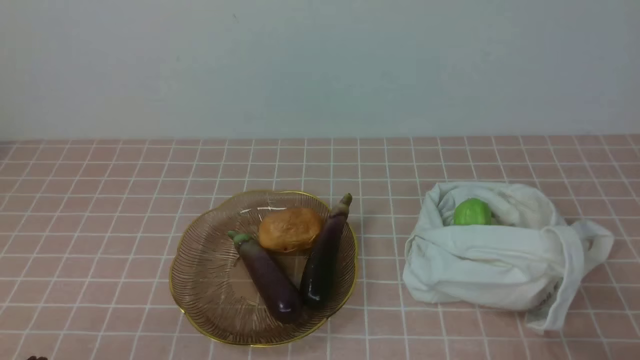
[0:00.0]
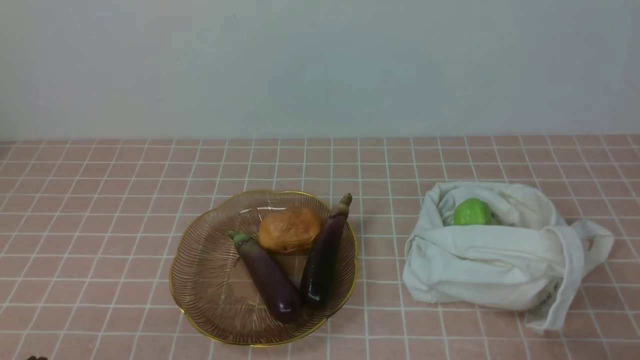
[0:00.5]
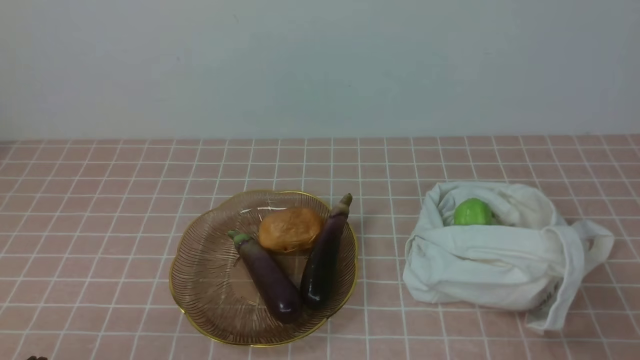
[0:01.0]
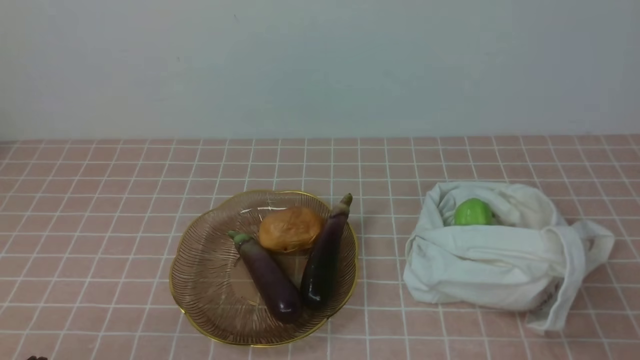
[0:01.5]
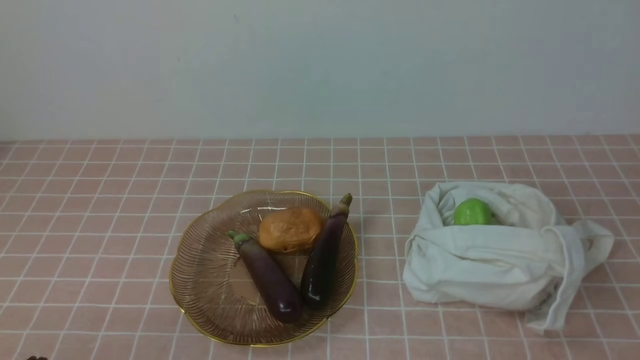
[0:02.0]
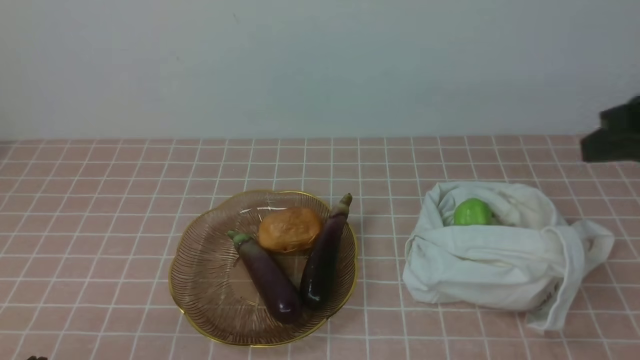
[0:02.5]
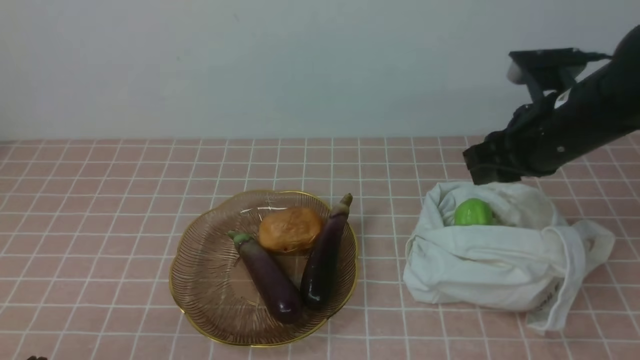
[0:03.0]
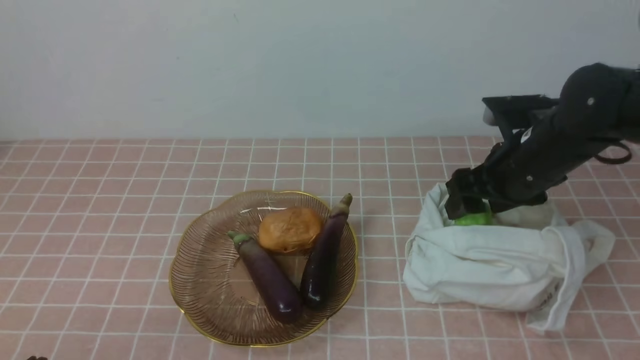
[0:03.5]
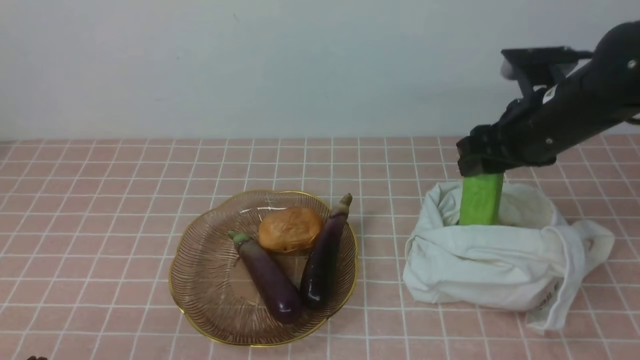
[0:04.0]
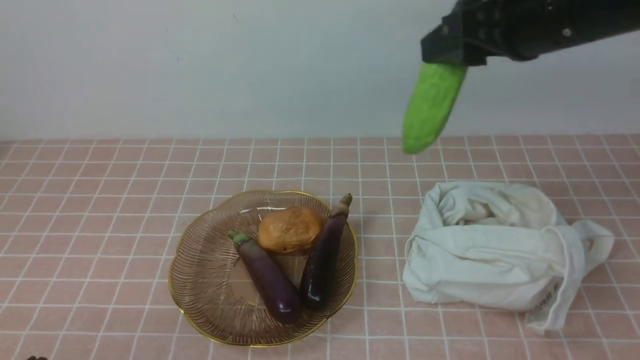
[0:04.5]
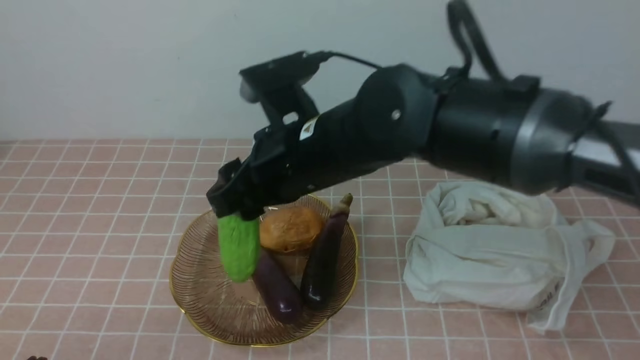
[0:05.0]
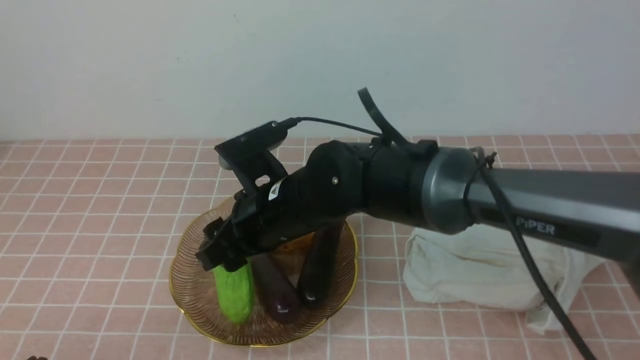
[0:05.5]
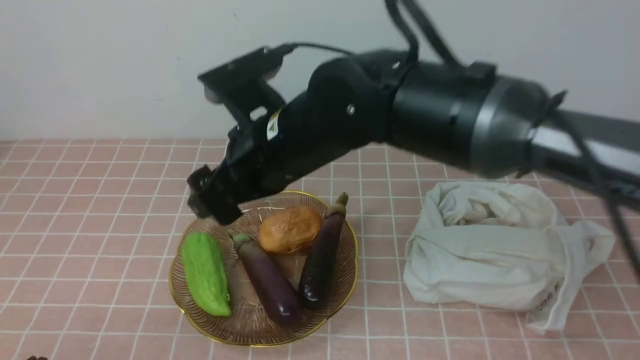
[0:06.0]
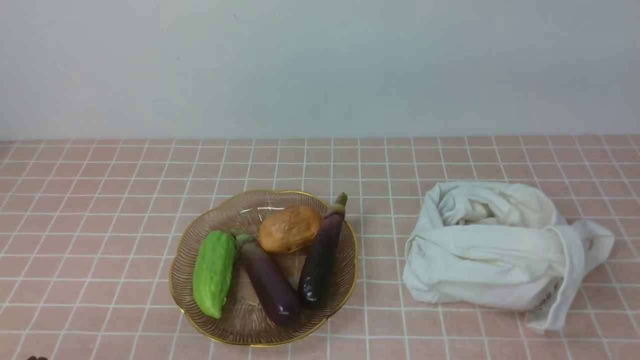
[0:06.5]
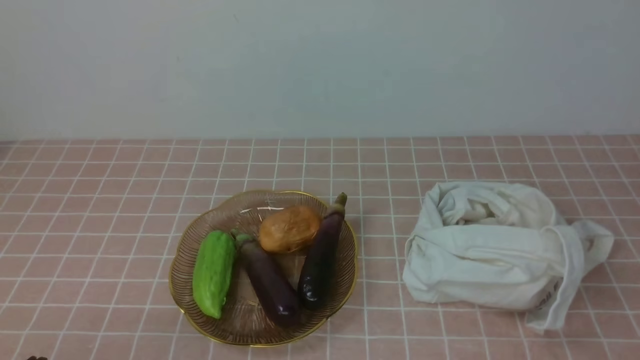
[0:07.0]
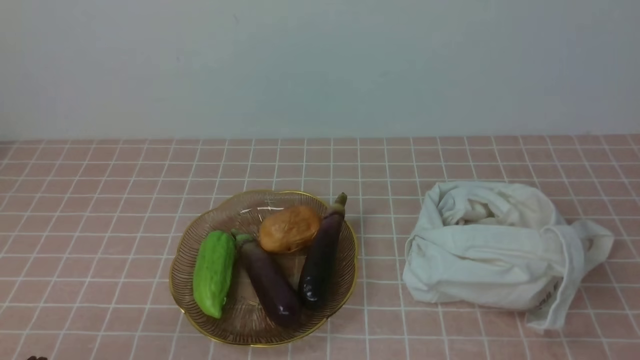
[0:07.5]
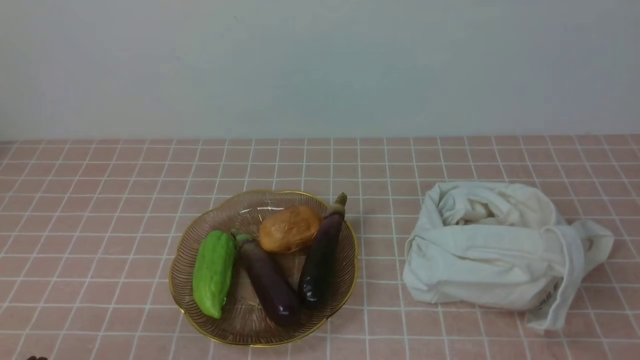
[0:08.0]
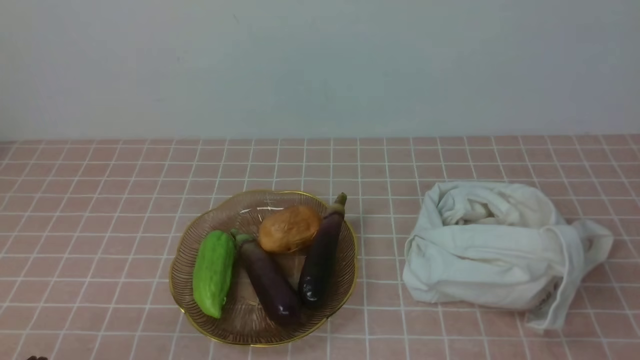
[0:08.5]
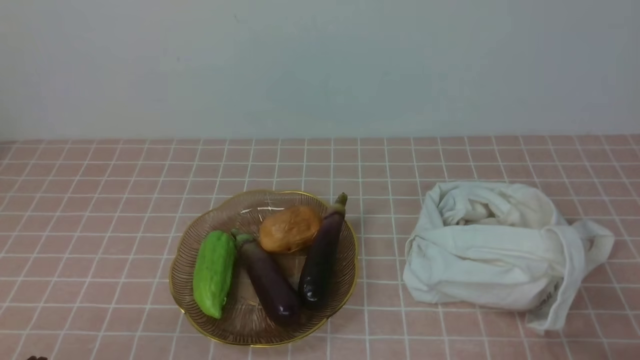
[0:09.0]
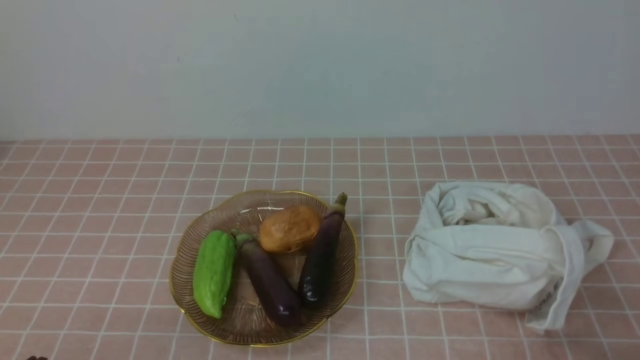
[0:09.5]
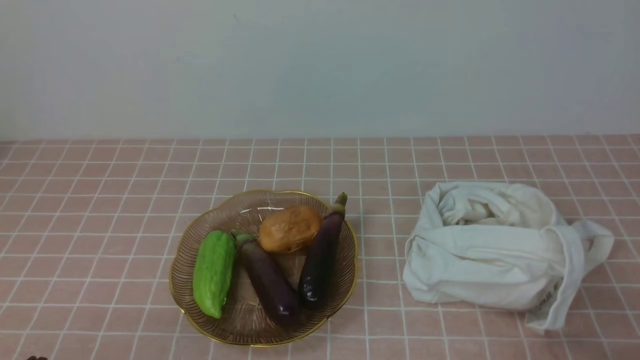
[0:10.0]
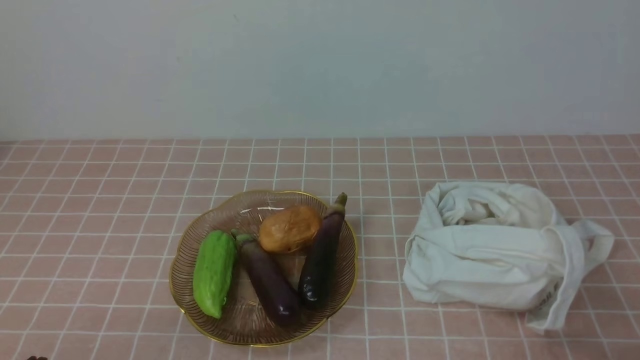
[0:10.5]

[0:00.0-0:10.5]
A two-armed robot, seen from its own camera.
Task of the whole recording: take vegetables from bag on pink coffee tablecloth place on plate.
Step, 0:00.0 to 0:03.5: Grasp the bitter melon with right gripper.
Step, 0:04.0 to 0:06.0: Place the bitter melon on the plate with right gripper.
0:02.0 to 0:04.0: The right gripper goes approximately 25 cm forward, and opens.
0:04.0 to 0:06.5: The right gripper moves up and down over approximately 30 cm, changing direction 2 times, and closes.
0:06.5 to 0:08.5: The right gripper goes roughly 30 cm downward, to the right and backward.
